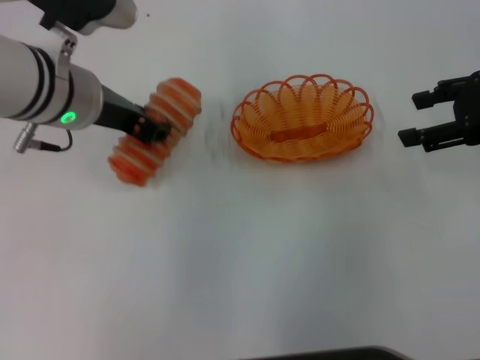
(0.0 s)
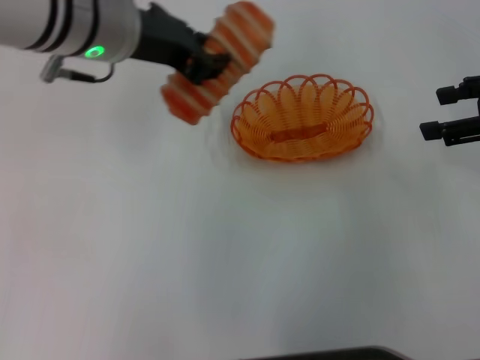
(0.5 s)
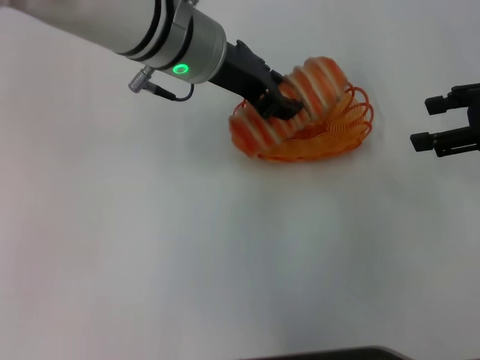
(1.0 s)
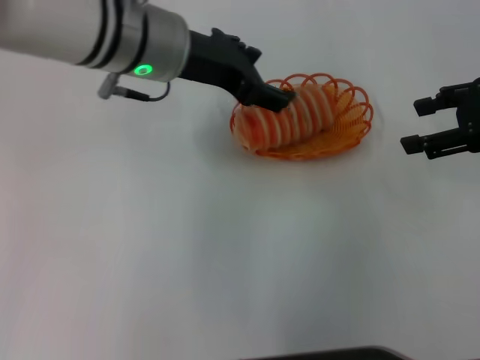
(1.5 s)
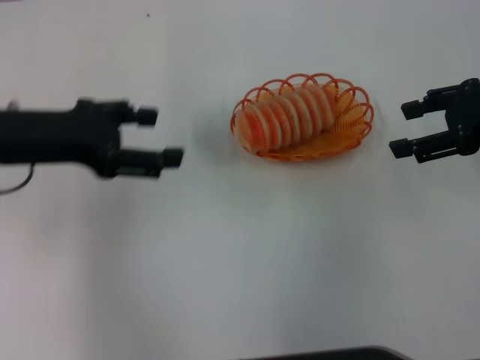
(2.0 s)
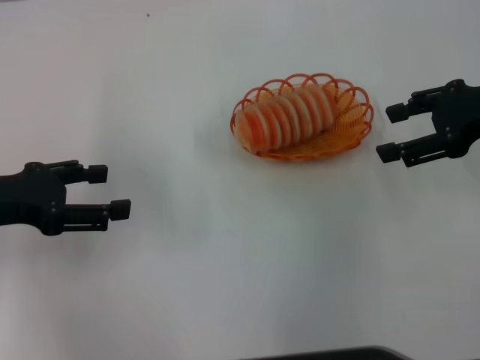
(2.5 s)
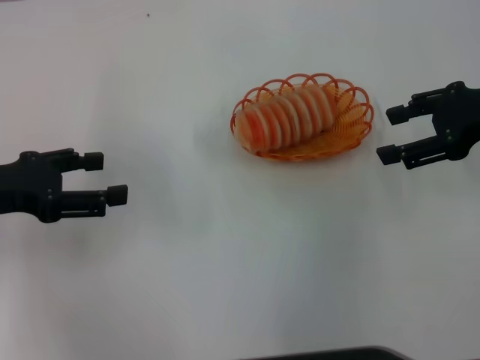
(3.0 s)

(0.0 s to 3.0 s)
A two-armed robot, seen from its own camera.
Step, 0.5 s - 1.5 s: Place the long bread into the basket with the left gripper.
0.0 s - 1.5 s: The left gripper travels to the right by roughly 5 cm, and opens up.
1.5 s - 3.0 s: The left gripper travels to the left and backward by approximately 25 cm.

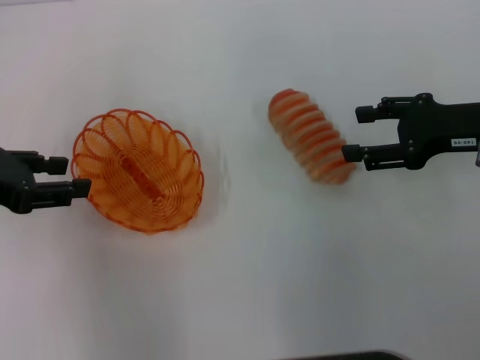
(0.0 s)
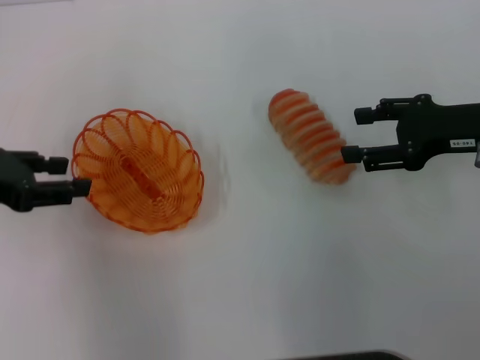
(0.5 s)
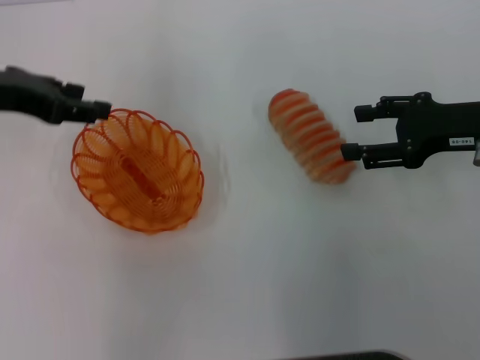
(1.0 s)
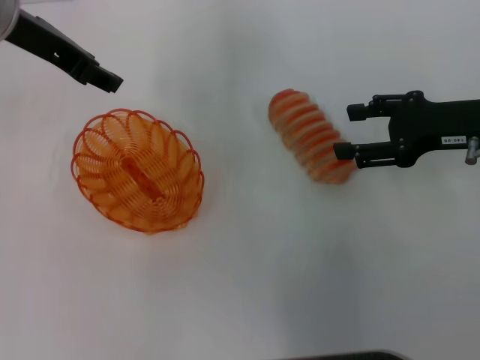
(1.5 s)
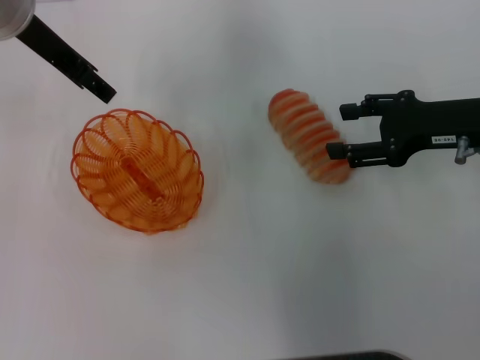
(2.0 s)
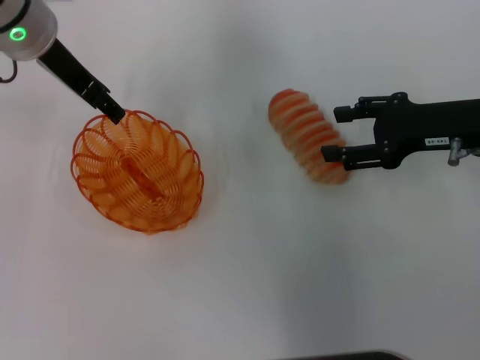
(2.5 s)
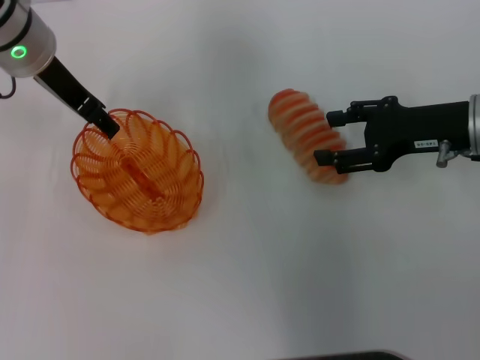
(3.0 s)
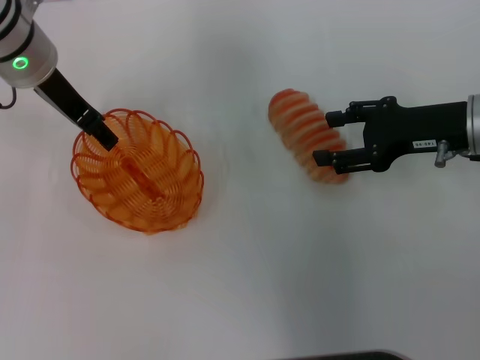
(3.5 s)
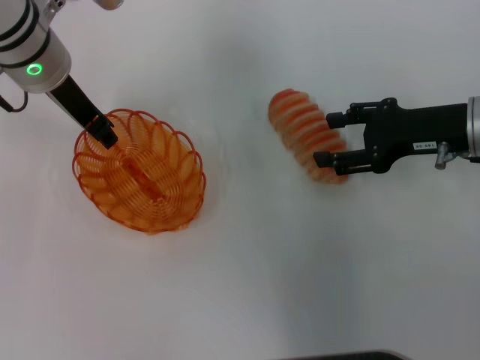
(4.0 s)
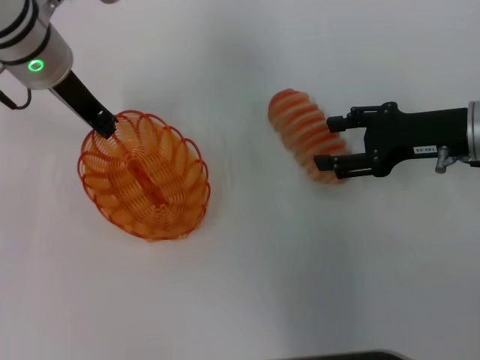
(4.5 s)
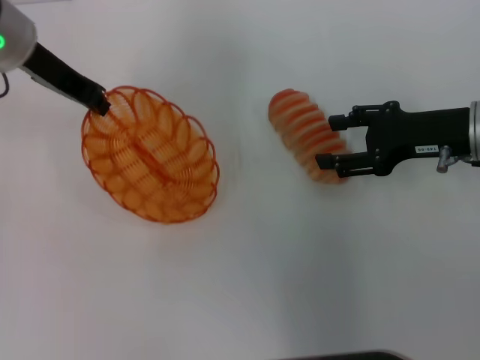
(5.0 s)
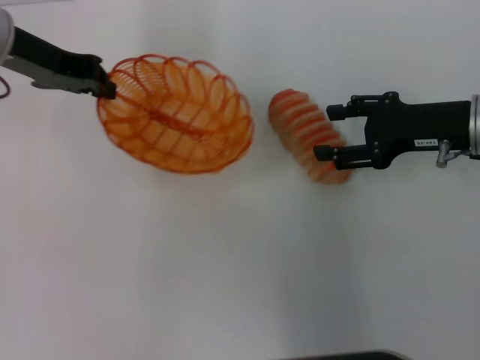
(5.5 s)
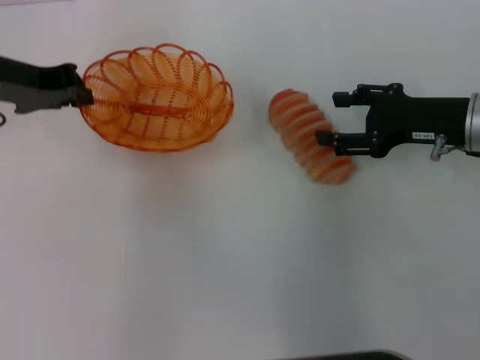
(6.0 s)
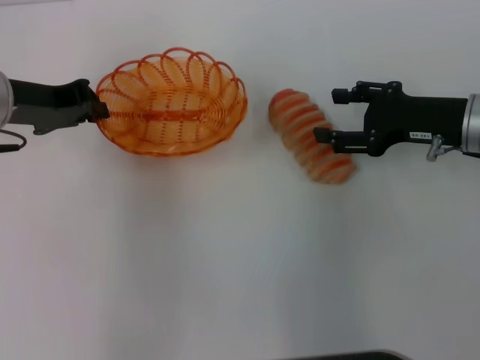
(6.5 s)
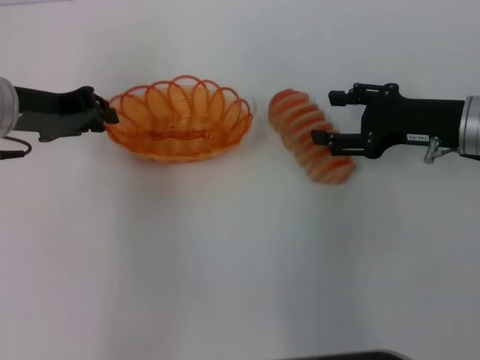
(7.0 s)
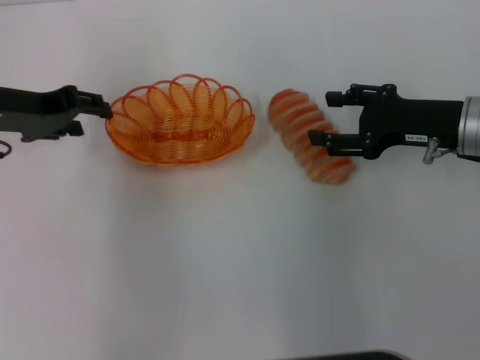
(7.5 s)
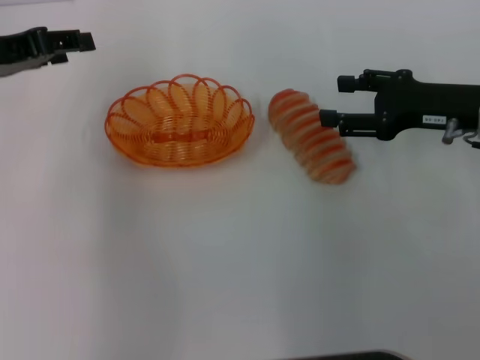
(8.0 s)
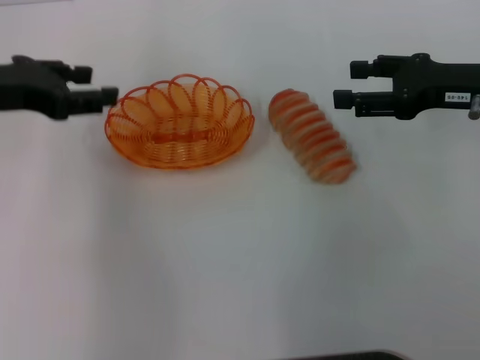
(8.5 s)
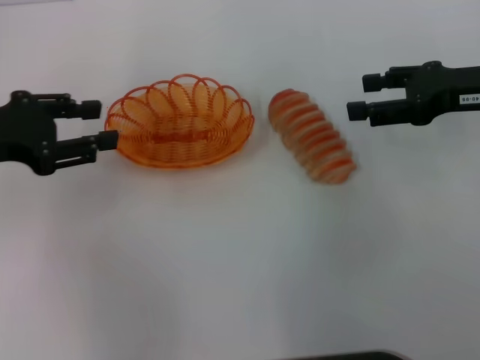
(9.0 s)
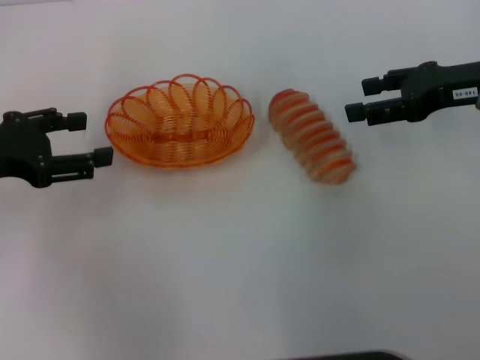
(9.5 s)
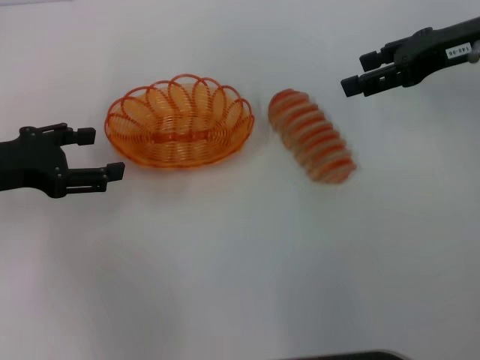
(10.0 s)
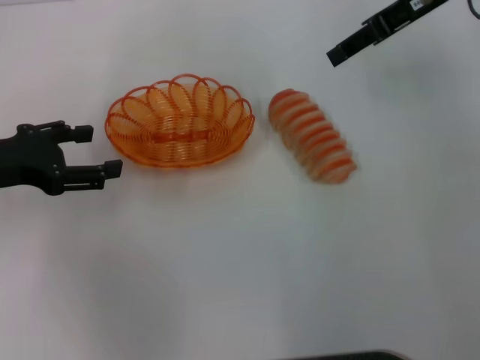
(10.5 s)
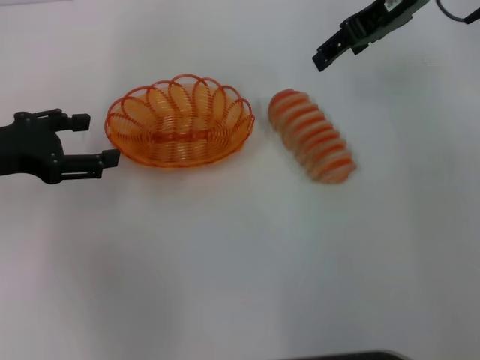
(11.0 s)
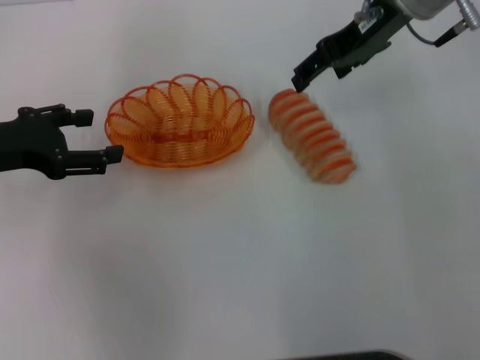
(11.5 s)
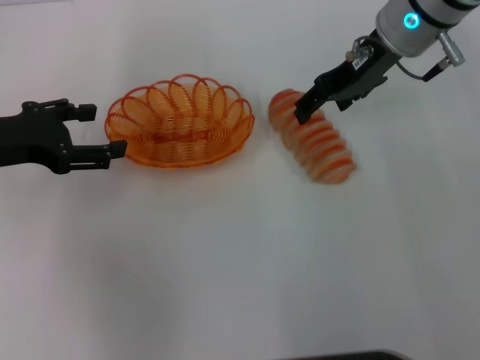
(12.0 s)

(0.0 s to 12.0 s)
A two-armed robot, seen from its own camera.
Step, 0.0 s - 5.0 s: Pick up the basket with the left gripper.
Step, 5.5 s - 7.5 s: Place the basket in the center of view with the left gripper.
0.0 s - 2.0 s: The left gripper shifts approximately 20 cm forward, to the right and upward.
2.0 s - 4.0 s: The left gripper shifts about 5 cm downward.
4.0 s - 6.0 s: The left gripper shifts roughly 10 cm to the left, and closes.
6.0 s - 8.0 s: The left gripper opens its fingers.
8.0 s - 10.0 s: The right gripper heads upward and forward, covering approximately 10 cm. The left gripper goes some 10 cm downward and backward.
10.0 s - 12.0 s: The right gripper goes some 10 cm to the left, and opens its fingers.

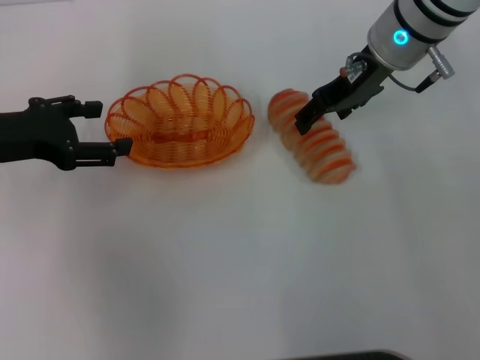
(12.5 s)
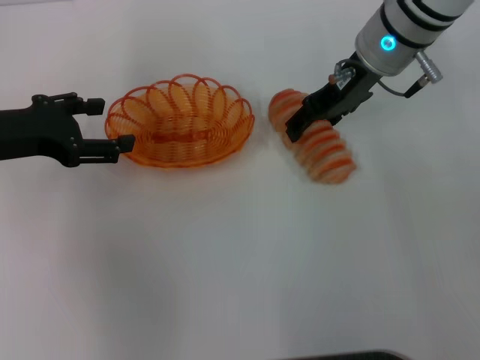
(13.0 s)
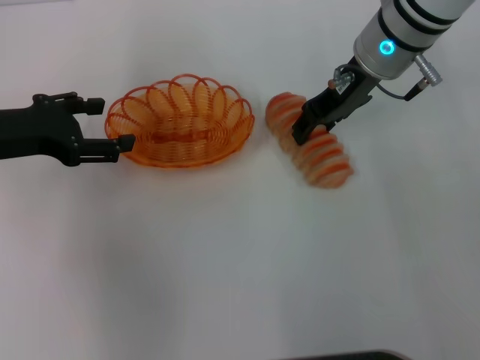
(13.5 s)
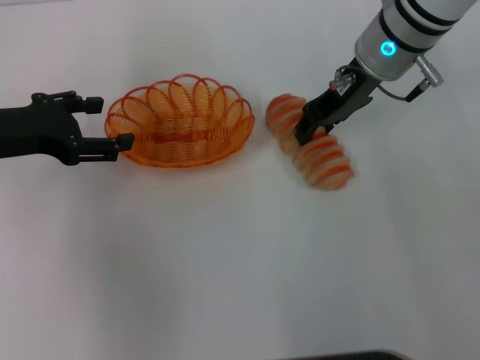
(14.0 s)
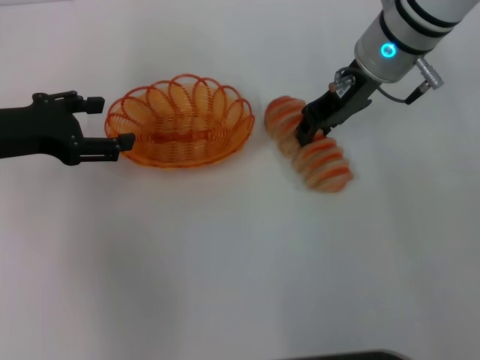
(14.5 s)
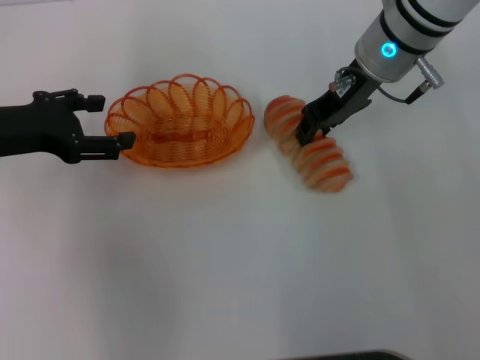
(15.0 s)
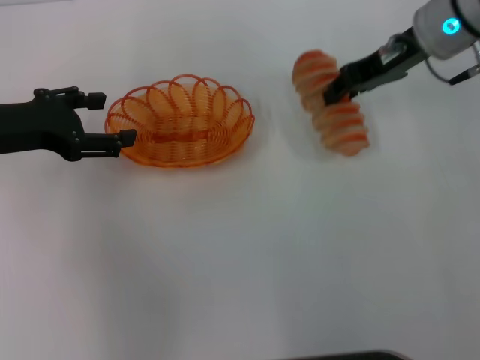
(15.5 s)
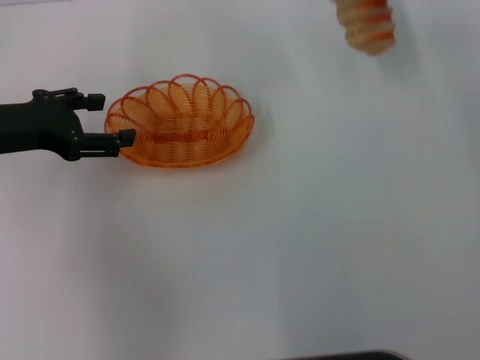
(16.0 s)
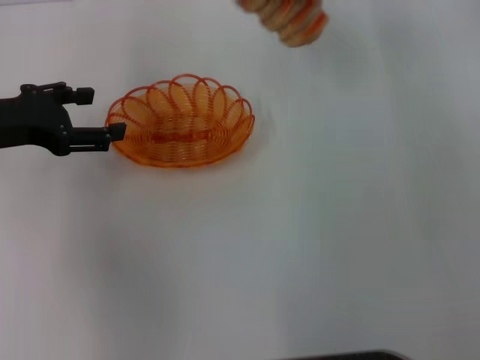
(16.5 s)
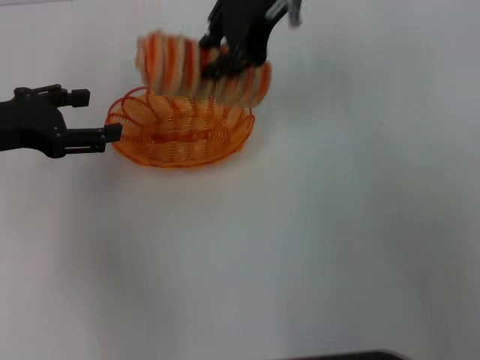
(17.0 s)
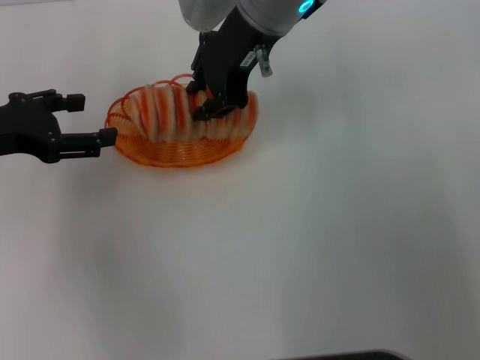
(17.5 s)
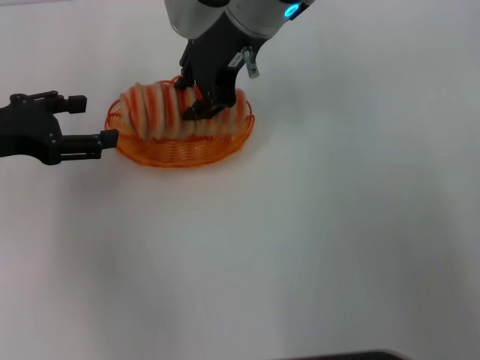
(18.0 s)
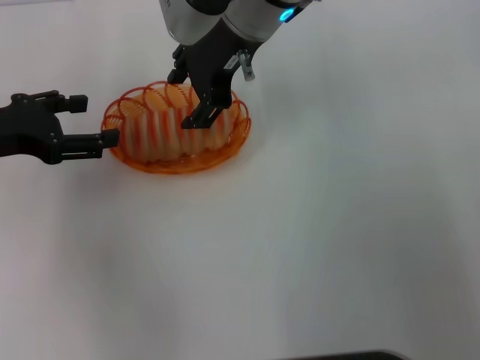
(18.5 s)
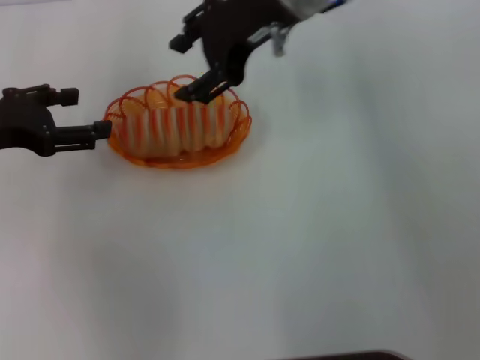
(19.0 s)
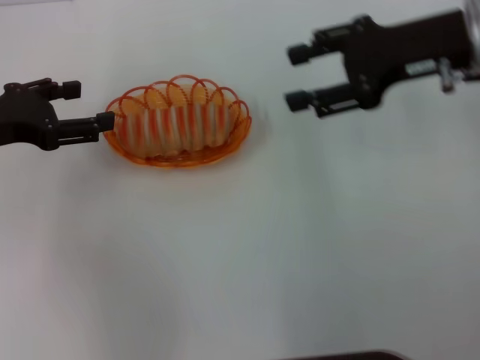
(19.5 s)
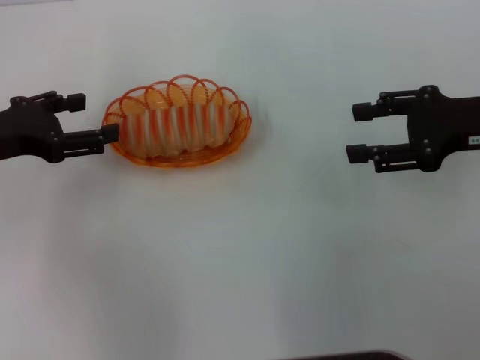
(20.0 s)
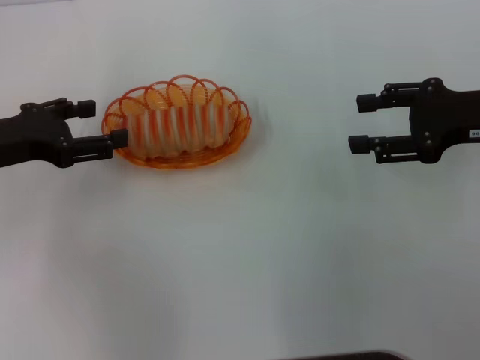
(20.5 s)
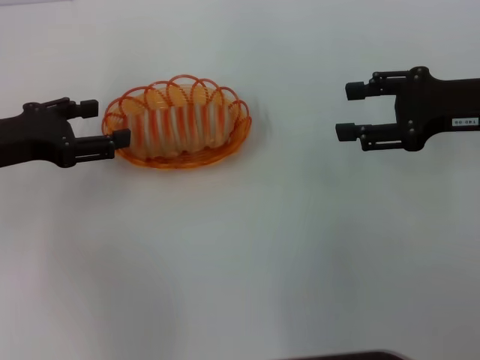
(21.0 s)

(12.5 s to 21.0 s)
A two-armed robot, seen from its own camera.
Step, 12.5 s - 15.5 s: Pick up the long bread with the right gripper.
Step, 16.0 s - 19.0 s: Place the long bread into the basket with the right gripper.
12.5 s - 14.5 s: The right gripper closes up.
14.5 s - 16.5 s: The right gripper shifts some 10 cm upward.
16.5 s - 19.0 s: The right gripper moves to the left, approximately 10 cm, and opens up.
19.0 s - 21.0 s: The right gripper moves to the right, backward and downward, about 25 cm.

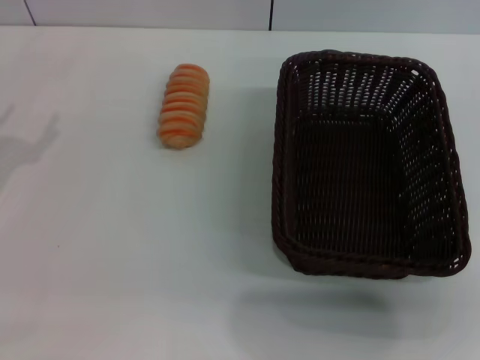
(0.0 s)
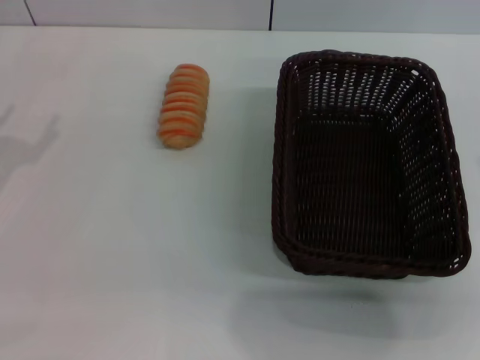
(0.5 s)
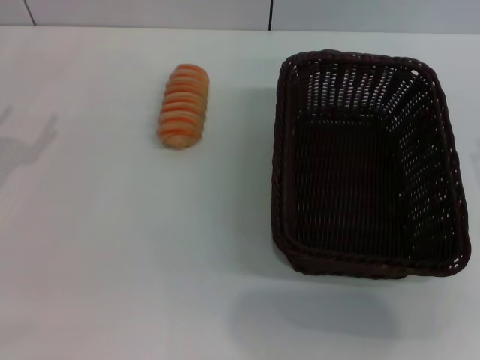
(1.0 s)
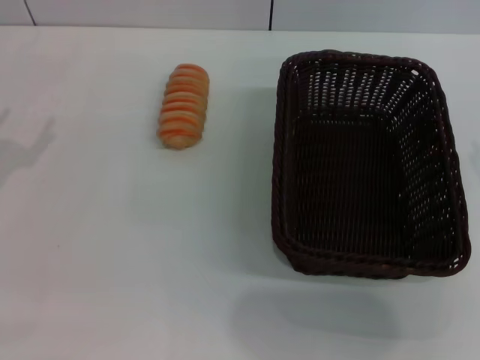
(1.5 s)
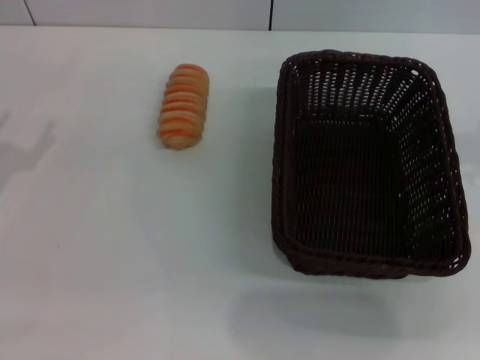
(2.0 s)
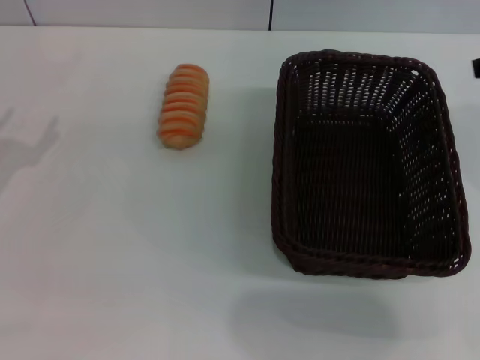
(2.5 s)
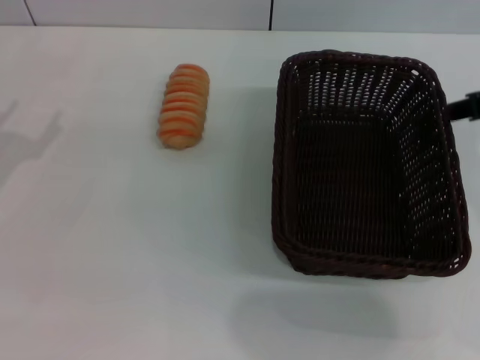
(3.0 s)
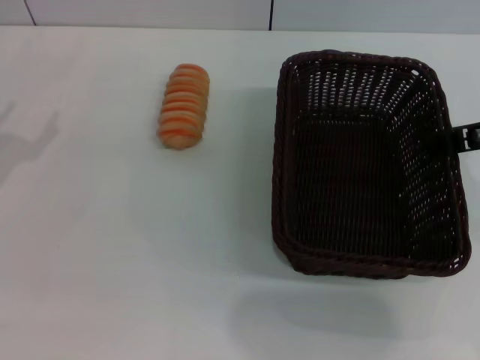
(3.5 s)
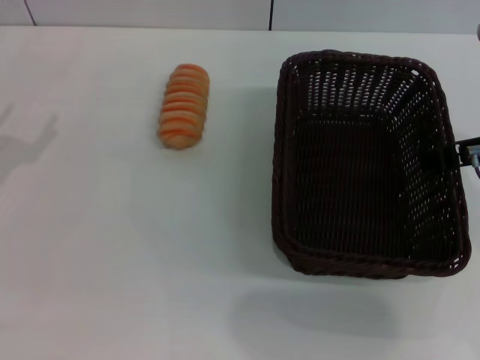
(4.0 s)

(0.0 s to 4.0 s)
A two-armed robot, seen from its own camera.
0.0 s - 2.0 s: The right gripper is displaced forward and upward by some 15 cm.
